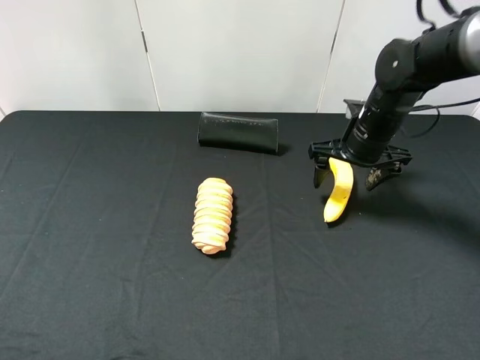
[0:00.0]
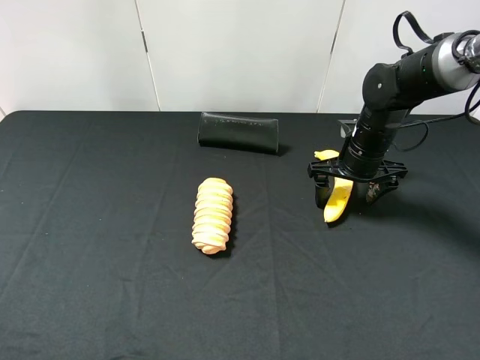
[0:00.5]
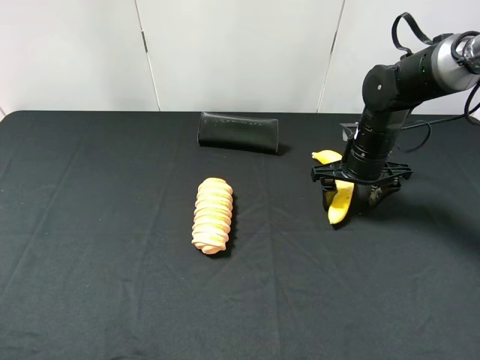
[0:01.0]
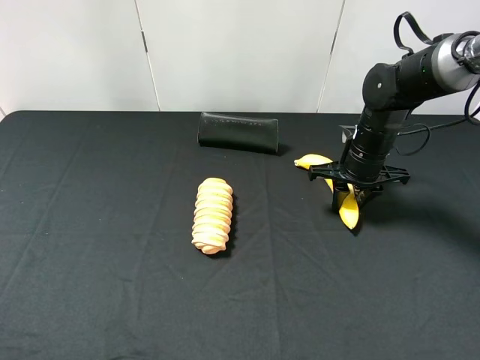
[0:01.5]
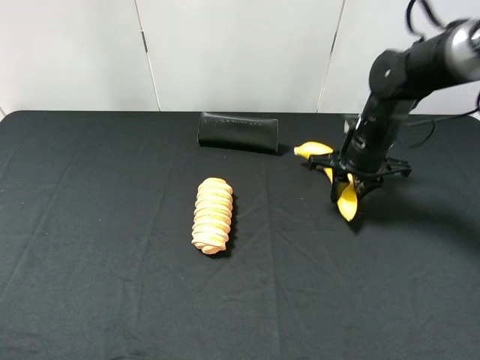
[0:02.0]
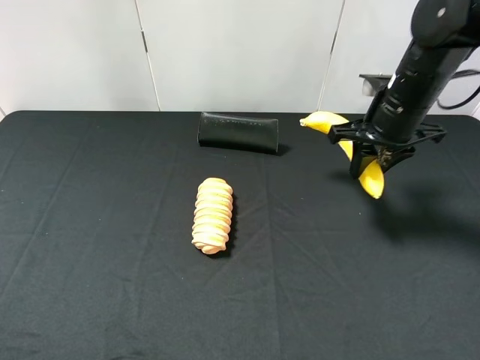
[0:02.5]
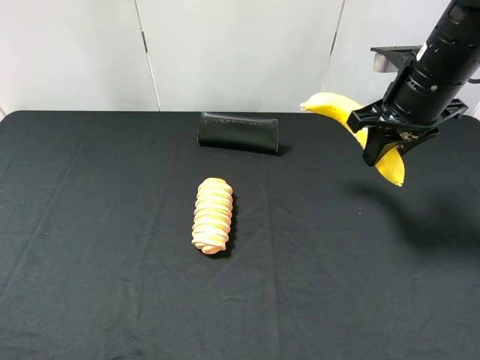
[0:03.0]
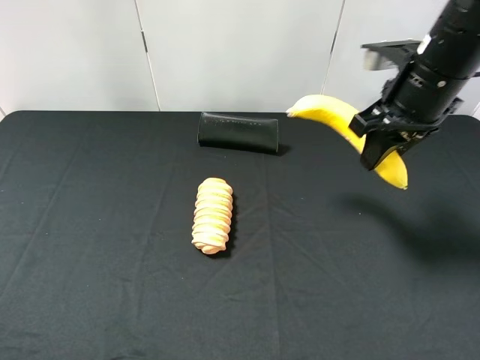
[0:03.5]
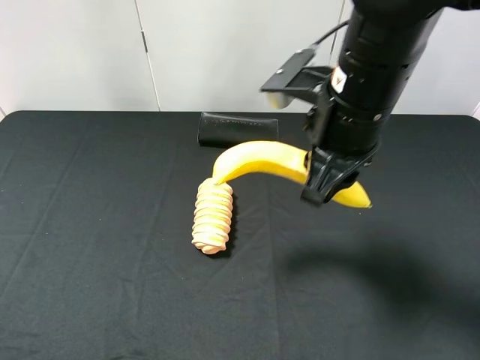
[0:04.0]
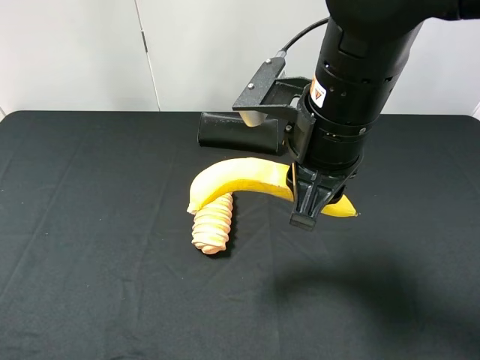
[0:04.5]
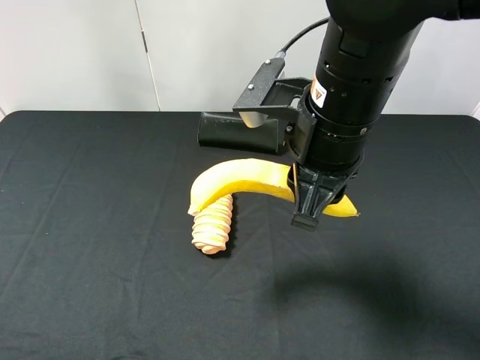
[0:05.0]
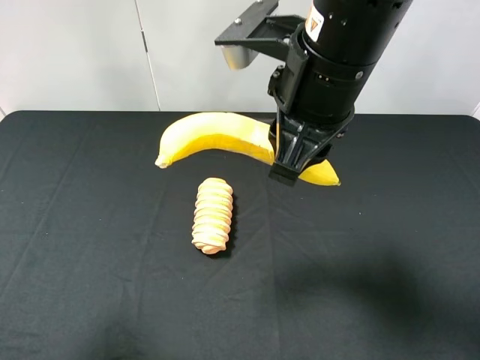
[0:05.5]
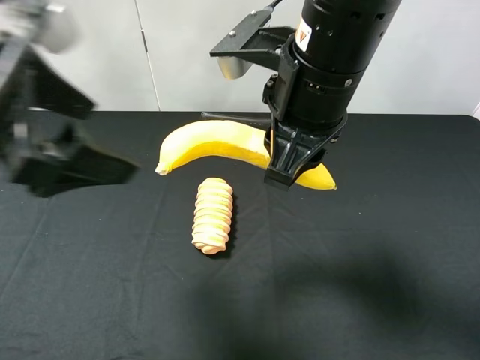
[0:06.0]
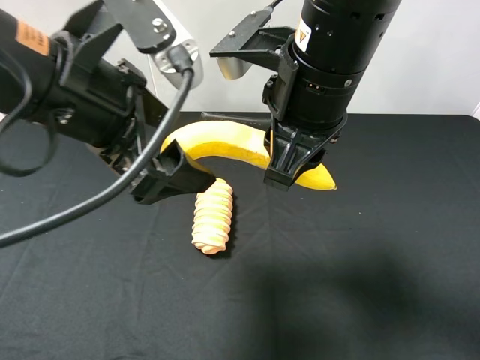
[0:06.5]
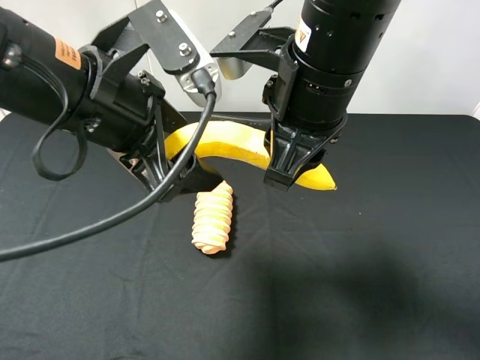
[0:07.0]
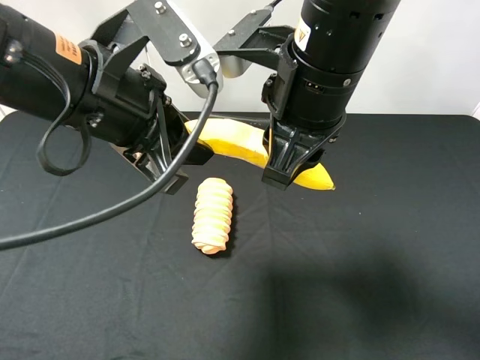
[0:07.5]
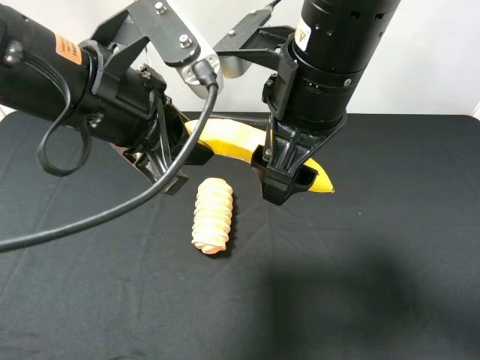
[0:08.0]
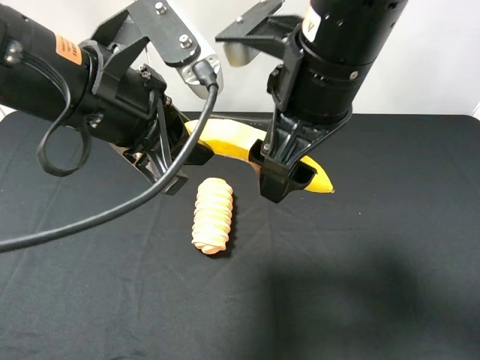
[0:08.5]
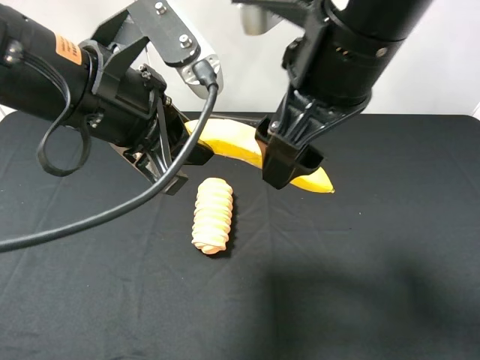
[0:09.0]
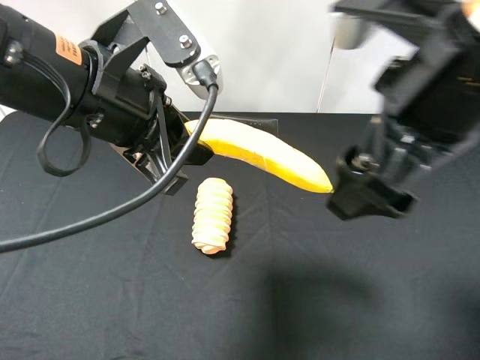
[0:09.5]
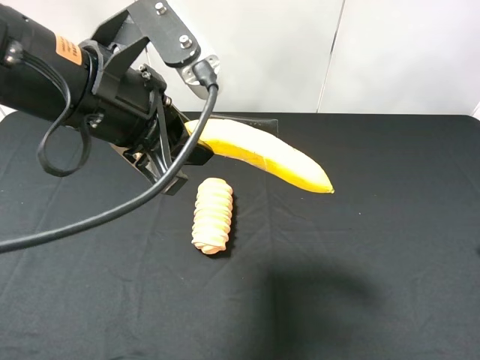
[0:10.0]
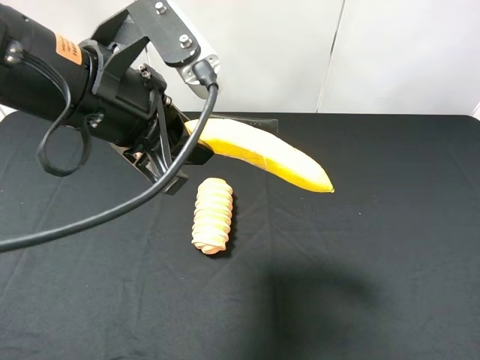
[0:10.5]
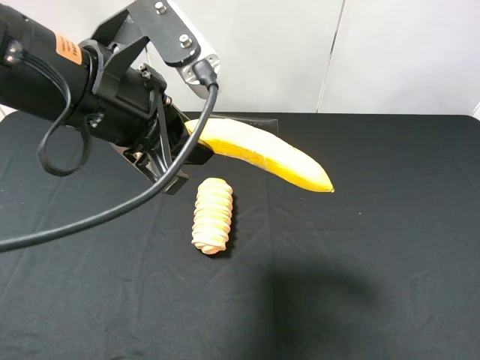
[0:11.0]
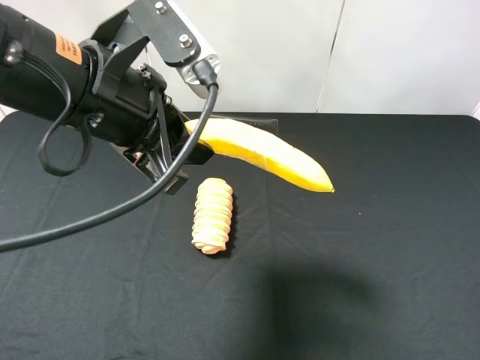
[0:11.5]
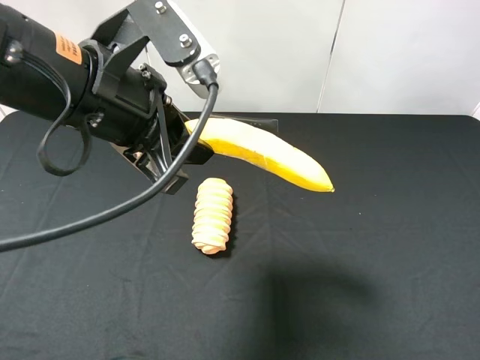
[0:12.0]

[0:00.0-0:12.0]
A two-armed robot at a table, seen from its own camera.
Task of the whole recording: use the right gripper to pick up the item and transfer it from the right gripper to the left gripper.
Step, 0:02.0 to 0:08.0: Pass the banana to the left gripper.
0:00.0 to 0:02.0: The right gripper closes its fingers.
0:02.0 to 0:04.0: The right gripper moves backward, upward and to the left, approximately 20 cm.
0:04.0 to 0:06.0: The left gripper travels forward and to the right by about 20 cm.
0:06.0 to 0:08.0: The right gripper opens its fingers, while the left gripper heads to the right, covering about 5 cm, and closes up.
0:08.0 to 0:10.0: The right gripper shifts some 25 cm to the right and backward.
0:10.0 to 0:12.0: The right gripper shifts some 10 cm downward and to the right.

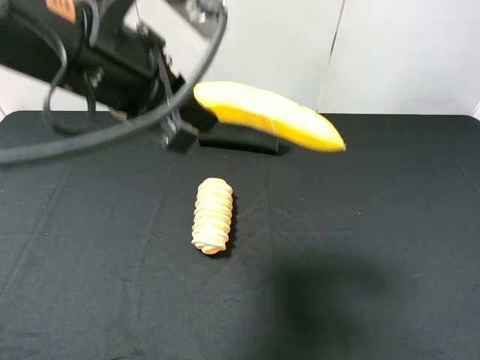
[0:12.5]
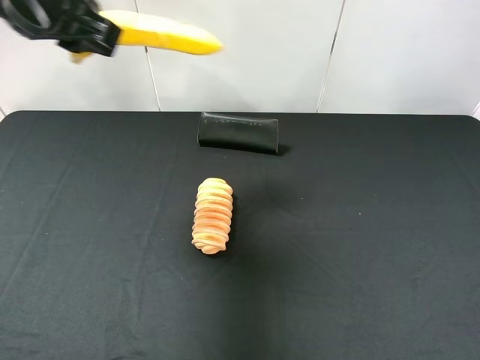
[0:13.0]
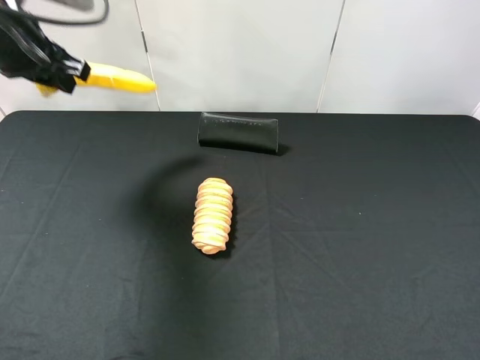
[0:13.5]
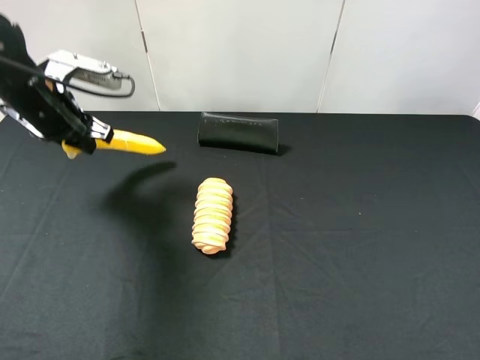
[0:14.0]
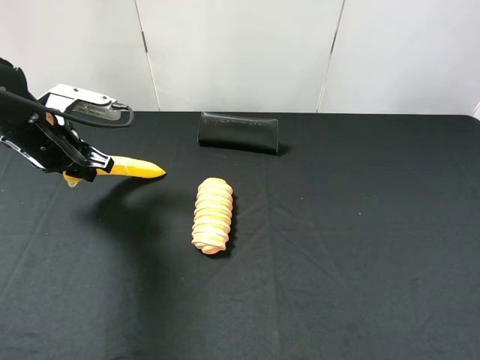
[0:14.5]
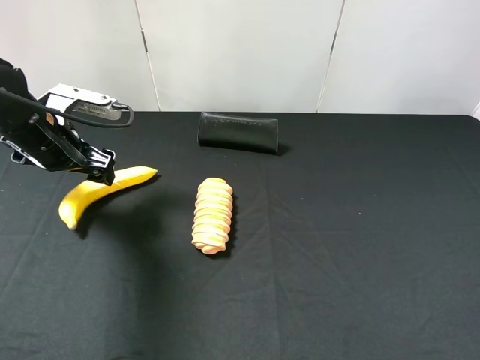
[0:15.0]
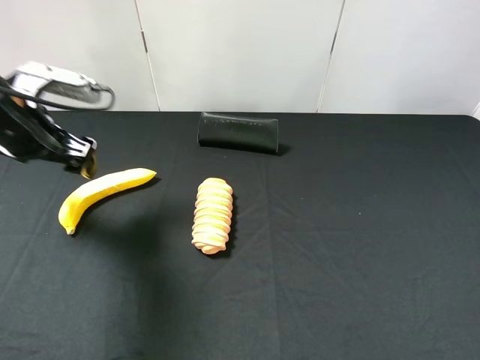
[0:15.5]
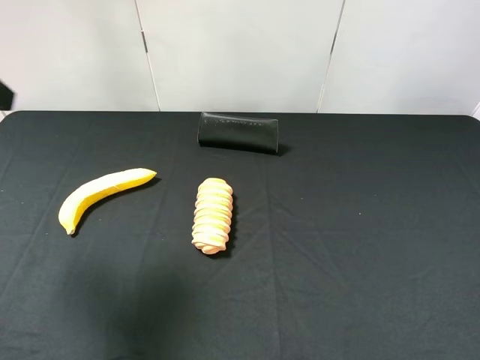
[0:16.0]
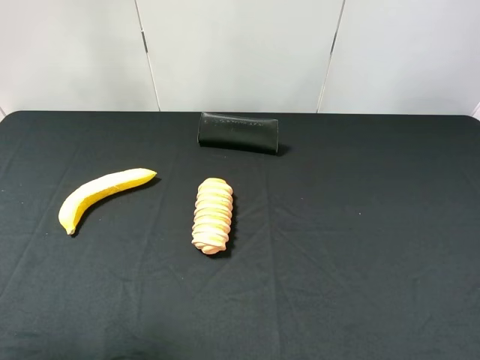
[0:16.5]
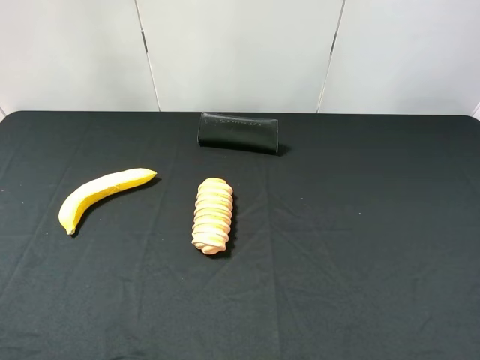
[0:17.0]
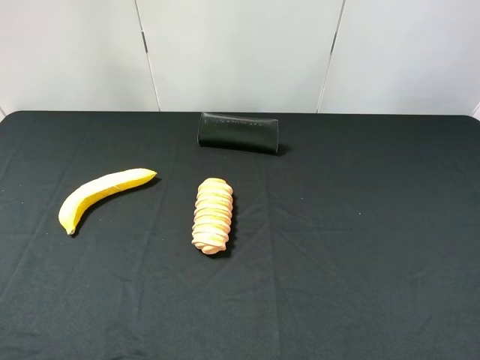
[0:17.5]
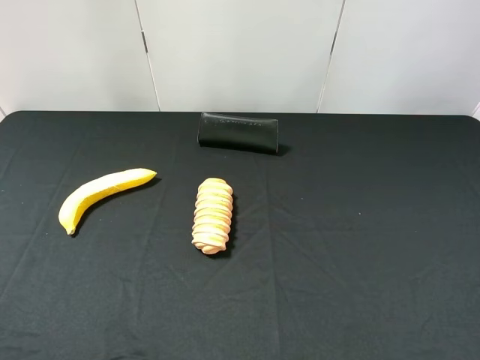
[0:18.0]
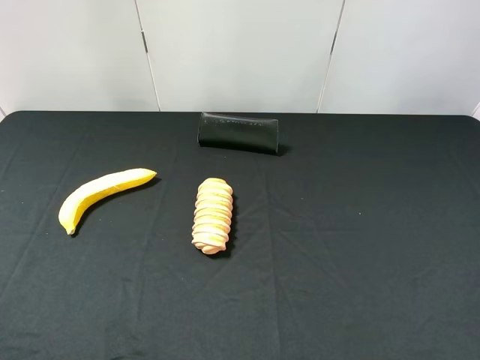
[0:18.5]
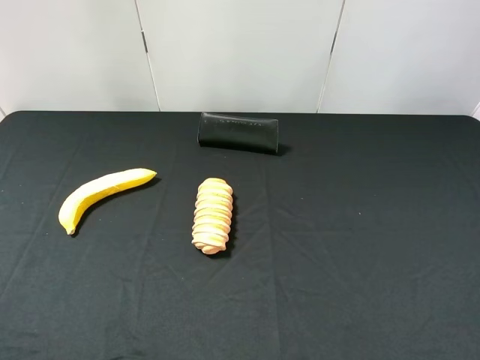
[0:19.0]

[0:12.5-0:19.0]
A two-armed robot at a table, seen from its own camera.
Task of the whole recording: use the right gripper to pick up the item and transfer it from the right gripper to the left gripper.
Step, 0:12.5 to 0:15.0: The left gripper places banana on the left side of the table.
0:12.5 to 0:14.5: The left gripper travels downward, to the left and forward by approximately 25 cm.
0:14.5 to 0:17.0: The left gripper moves backward and upward, roughly 35 cm, and opens.
